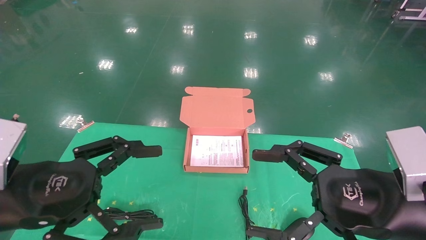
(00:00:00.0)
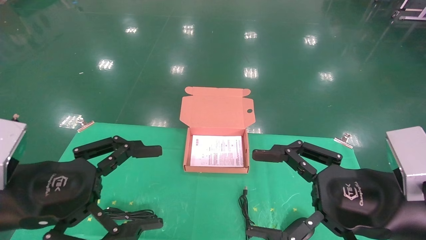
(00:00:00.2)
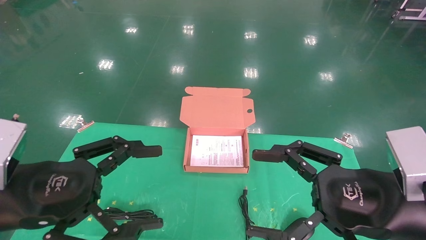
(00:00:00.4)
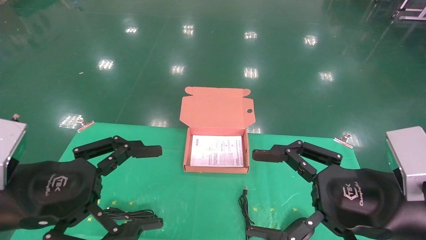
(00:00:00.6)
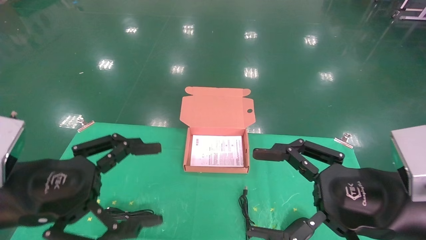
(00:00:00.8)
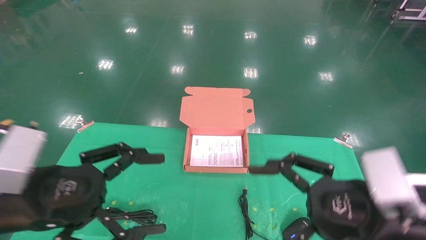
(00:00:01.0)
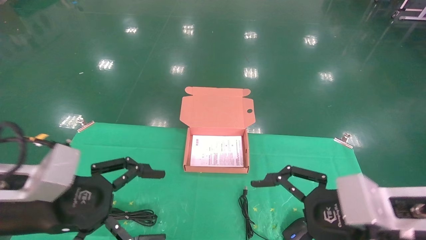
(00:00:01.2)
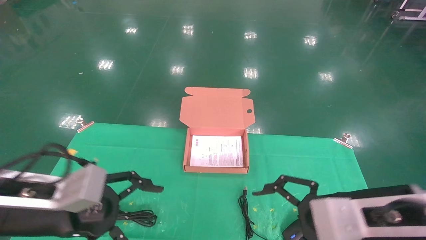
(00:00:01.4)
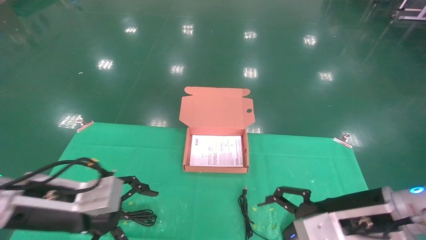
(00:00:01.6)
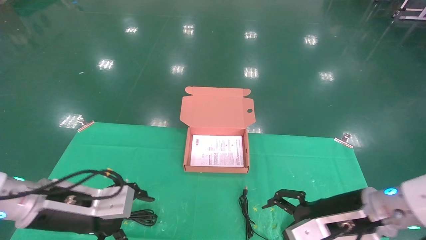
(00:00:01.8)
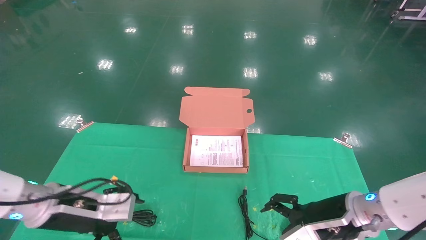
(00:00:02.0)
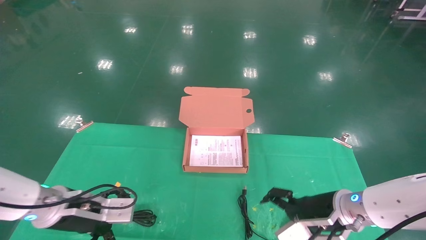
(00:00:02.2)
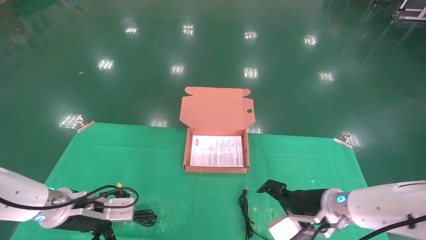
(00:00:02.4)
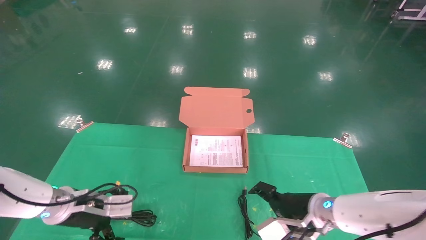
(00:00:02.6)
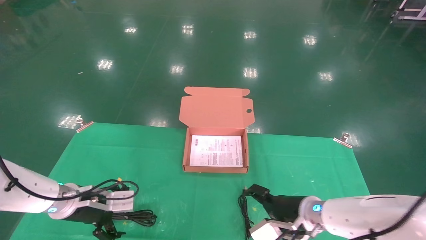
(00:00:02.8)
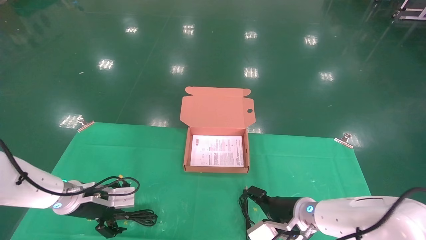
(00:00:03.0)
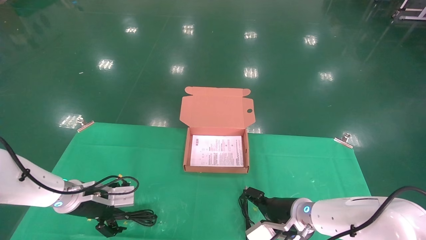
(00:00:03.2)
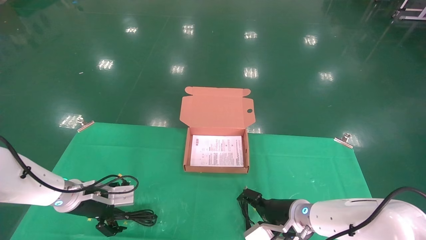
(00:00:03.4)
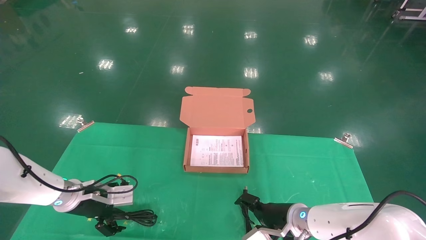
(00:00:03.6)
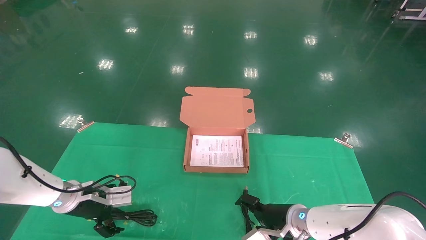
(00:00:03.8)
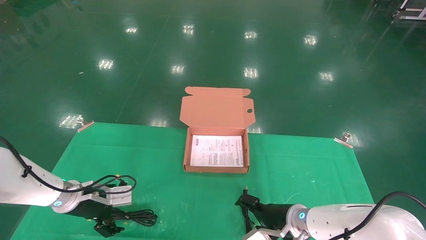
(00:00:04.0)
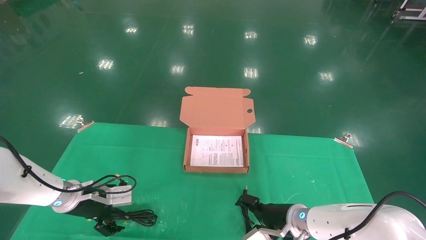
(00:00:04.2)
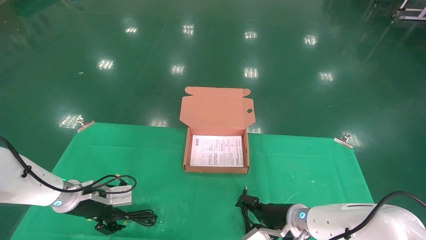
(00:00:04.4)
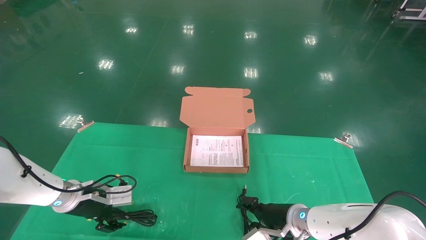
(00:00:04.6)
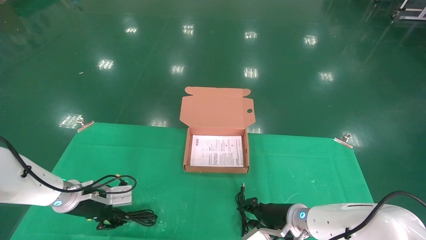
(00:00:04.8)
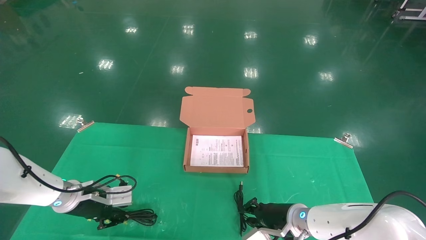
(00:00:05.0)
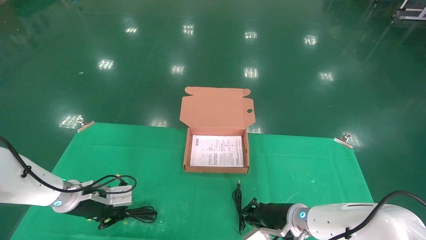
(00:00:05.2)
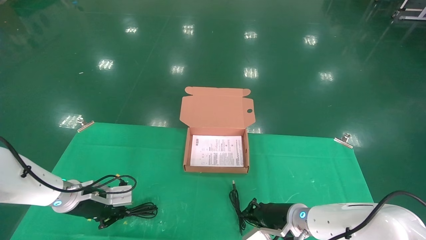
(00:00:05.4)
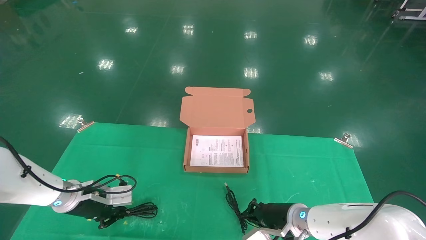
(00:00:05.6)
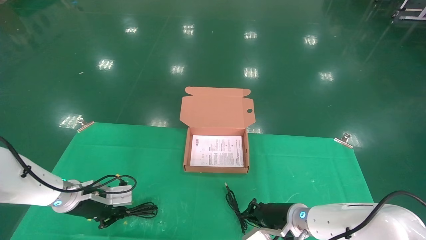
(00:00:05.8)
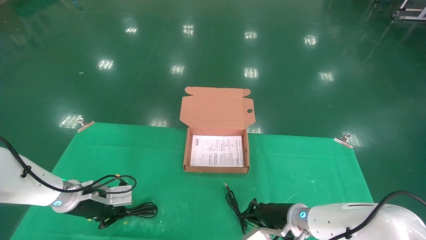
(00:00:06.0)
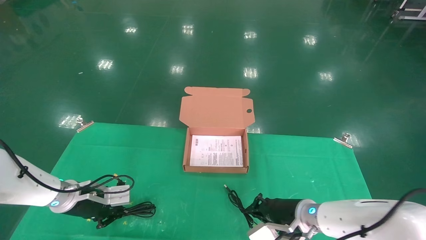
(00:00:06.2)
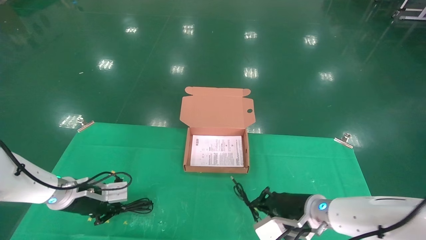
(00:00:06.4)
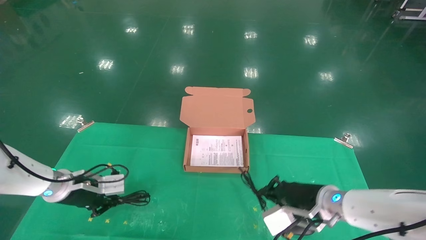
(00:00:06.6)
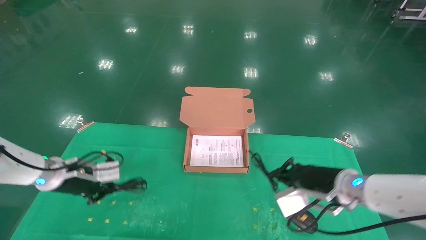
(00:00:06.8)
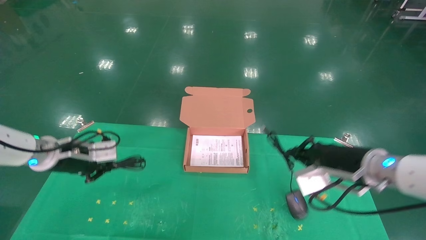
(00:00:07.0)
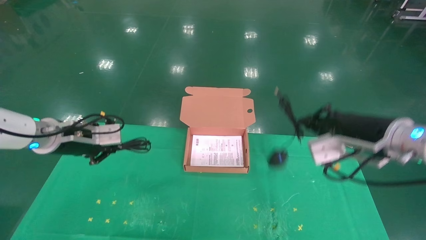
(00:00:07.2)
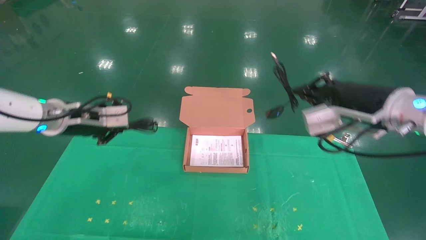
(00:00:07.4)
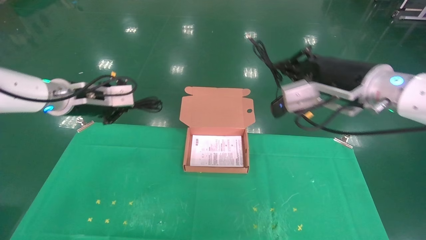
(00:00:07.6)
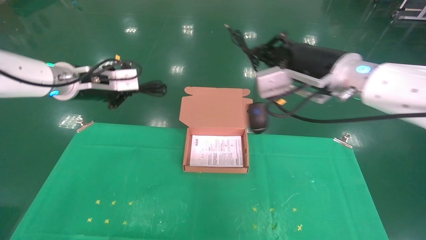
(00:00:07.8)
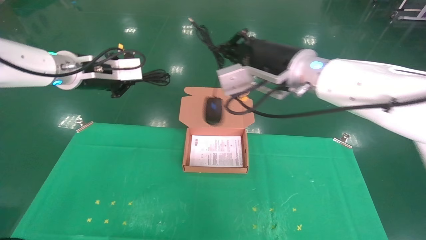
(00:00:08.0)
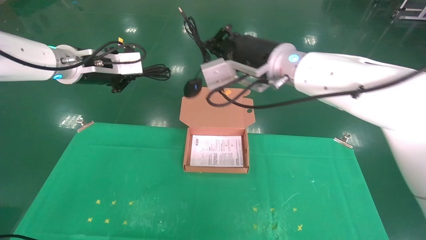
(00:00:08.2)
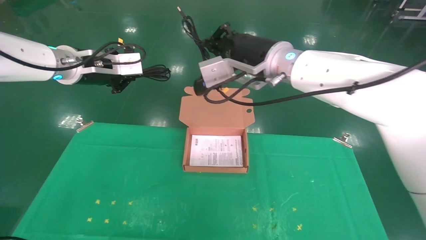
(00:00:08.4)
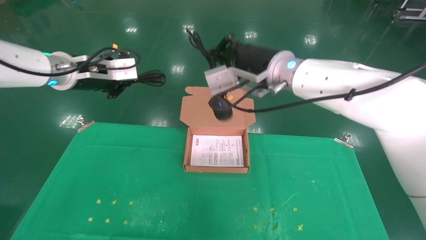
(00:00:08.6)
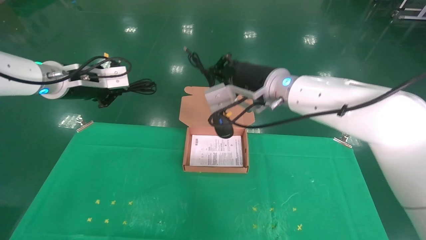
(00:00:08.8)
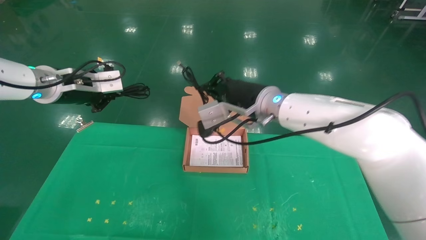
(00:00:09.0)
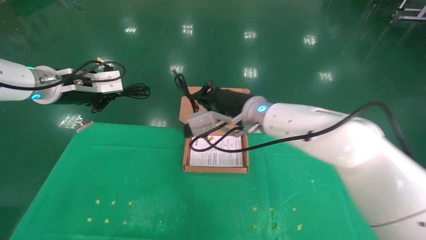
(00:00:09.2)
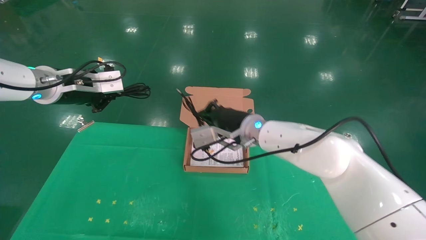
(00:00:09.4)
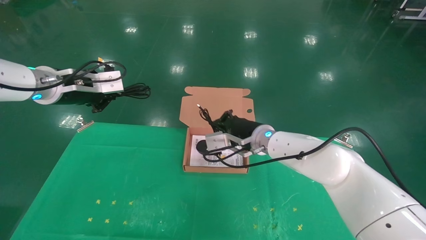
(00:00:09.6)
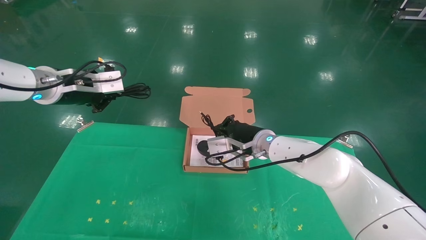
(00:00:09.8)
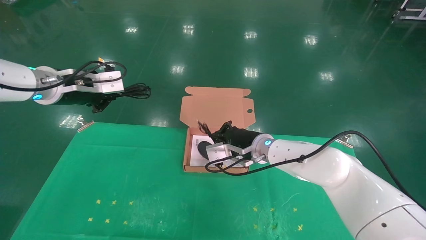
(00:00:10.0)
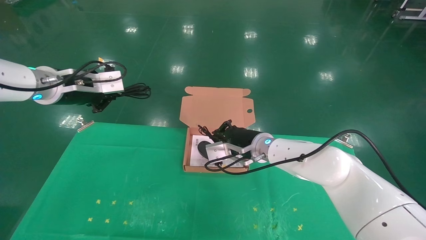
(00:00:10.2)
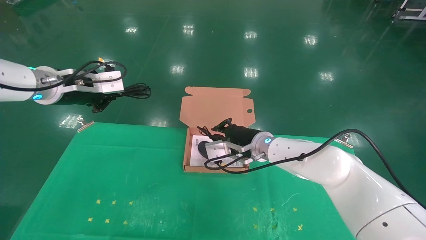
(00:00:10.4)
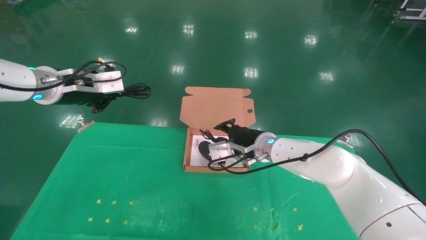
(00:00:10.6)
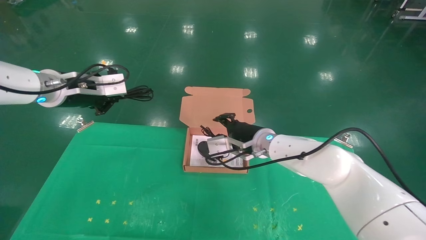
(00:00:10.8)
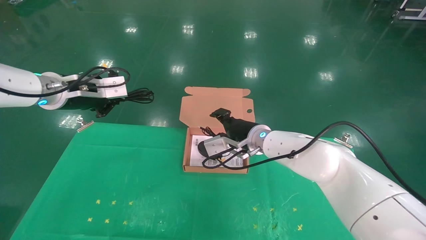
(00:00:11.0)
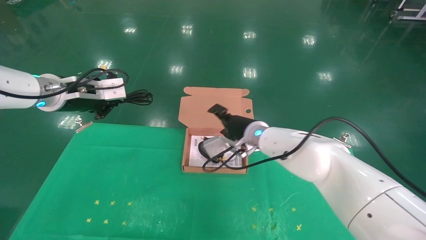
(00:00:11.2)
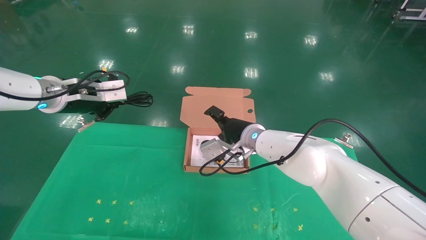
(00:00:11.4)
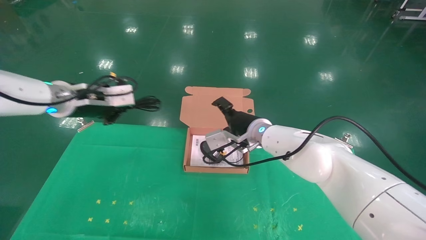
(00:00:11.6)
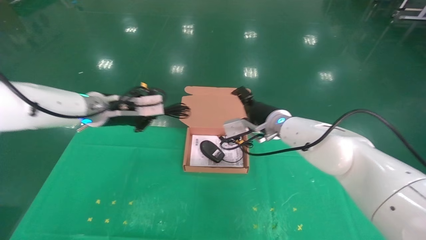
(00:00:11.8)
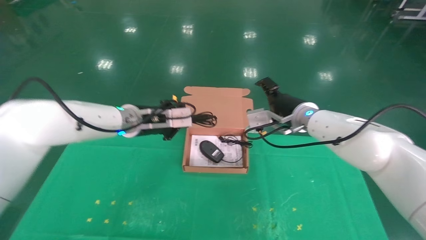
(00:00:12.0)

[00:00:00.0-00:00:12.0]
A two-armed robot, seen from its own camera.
Task of the whole recording: grasp data cable left put into box grasp mouse right put into box.
Step, 00:00:01.2 to 00:00:06.8: Grab and pick up both the mouse and power cord from the accessory packaging area at the same time.
00:00:00.0 to 00:00:01.6: Both grippers move forward and downward, roughly 10 cm.
00:00:01.6 to 00:00:03.0: The left gripper travels forward and downward by roughly 15 cm; the right gripper moves forward, downward and to the left, about 20 cm.
00:00:03.0 to 00:00:04.4: The grippers make only small movements.
00:00:04.4 to 00:00:06.0: The left gripper closes up. The right gripper closes up.
00:00:06.0 to 00:00:07.6: Both grippers move upward, roughly 25 cm.
00:00:07.6 to 00:00:09.0: The right gripper shifts some 15 cm to the left and forward.
00:00:09.0 to 00:00:10.4: The right gripper goes roughly 15 cm downward and forward.
00:00:10.4 to 00:00:12.0: The right gripper goes about 10 cm to the right and upward, and opens up. Meanwhile the left gripper is displaced to the right and downward by some 15 cm.

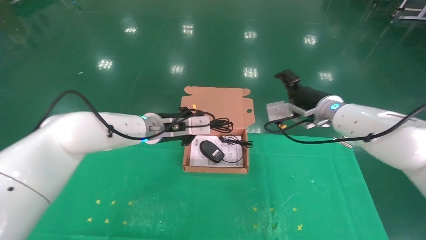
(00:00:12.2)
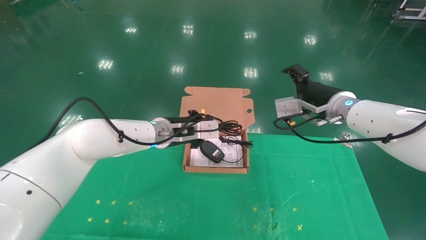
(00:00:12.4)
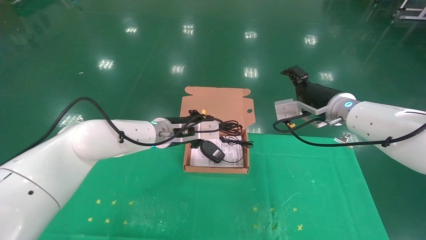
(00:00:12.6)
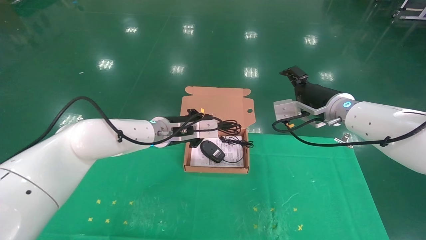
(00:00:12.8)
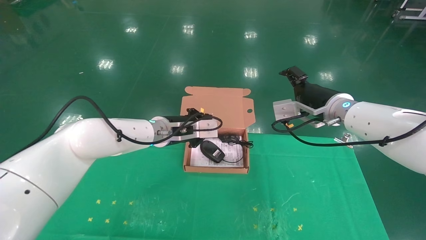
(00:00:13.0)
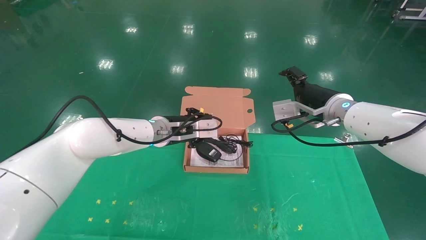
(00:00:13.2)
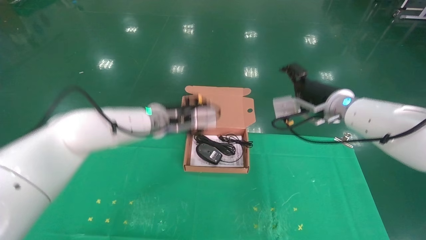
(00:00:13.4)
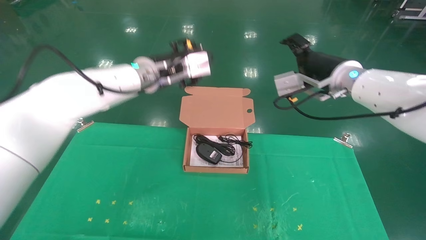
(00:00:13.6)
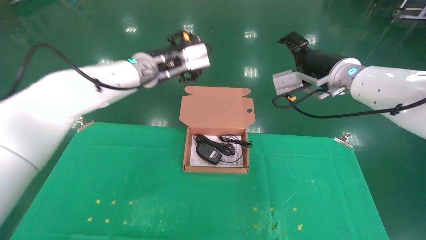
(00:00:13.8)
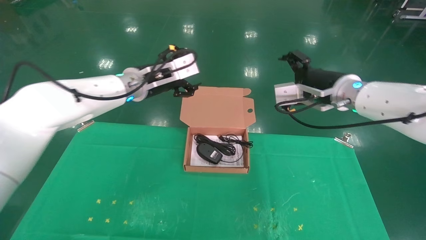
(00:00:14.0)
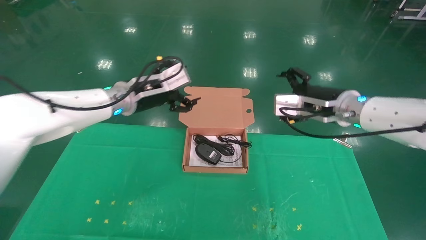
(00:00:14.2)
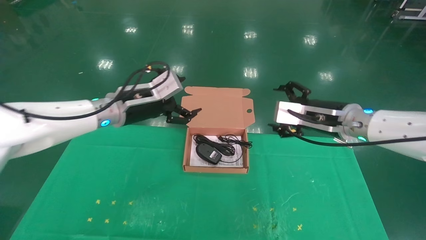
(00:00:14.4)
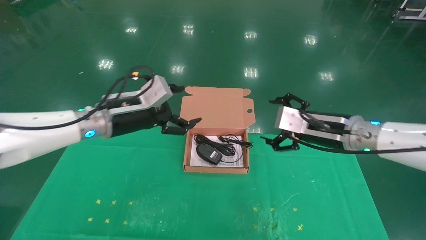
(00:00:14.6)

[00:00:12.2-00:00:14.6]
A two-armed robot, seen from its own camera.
Task of the whole recording: grasp data cable left put into box grasp mouse right put into box.
00:00:12.2 to 00:00:13.4: The right gripper changes place by roughly 5 cm.
00:00:13.4 to 00:00:14.6: The left gripper heads to the left and backward, covering roughly 10 cm, and opens. Meanwhile the right gripper goes roughly 10 cm backward and downward.
